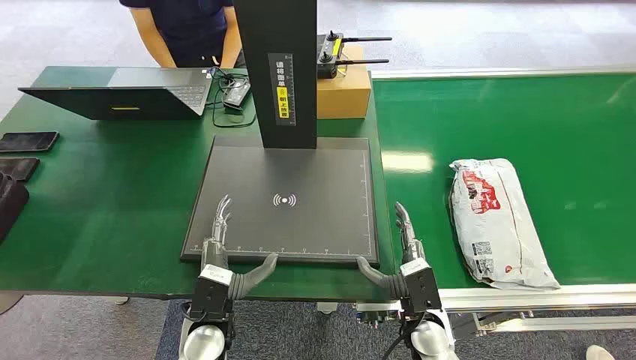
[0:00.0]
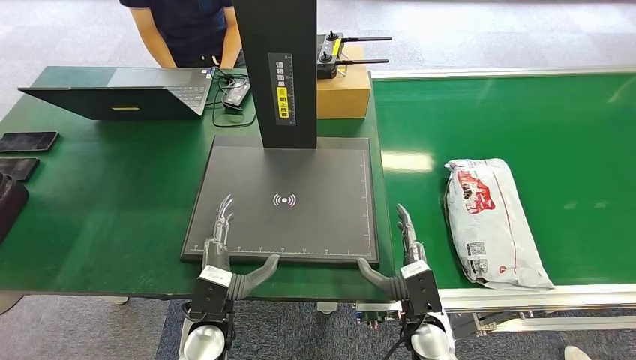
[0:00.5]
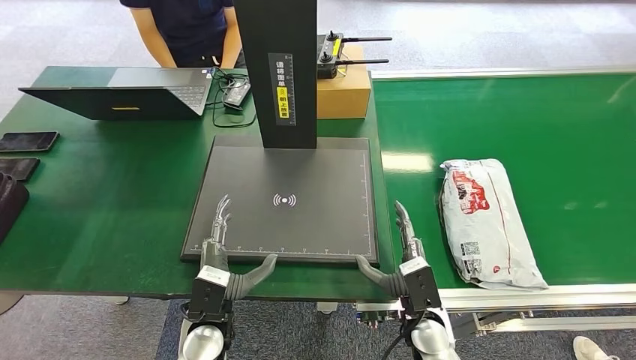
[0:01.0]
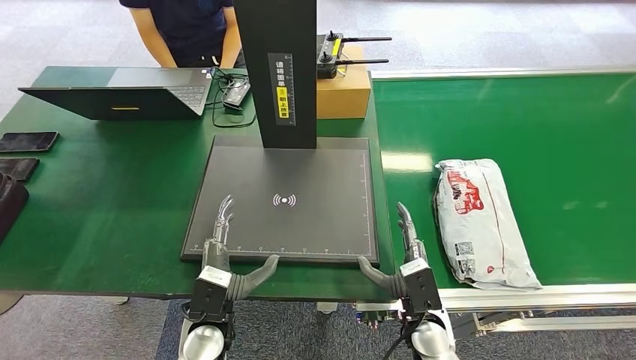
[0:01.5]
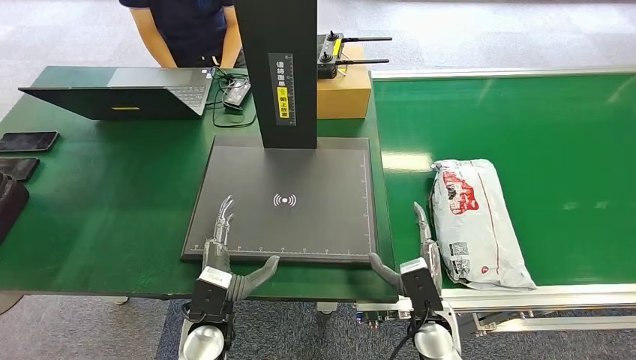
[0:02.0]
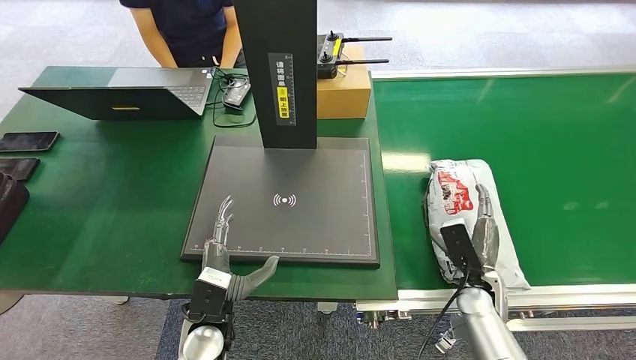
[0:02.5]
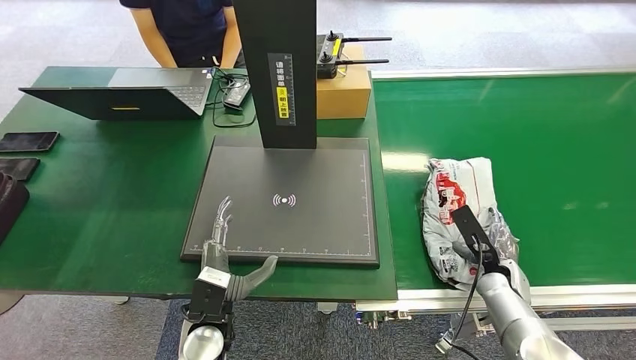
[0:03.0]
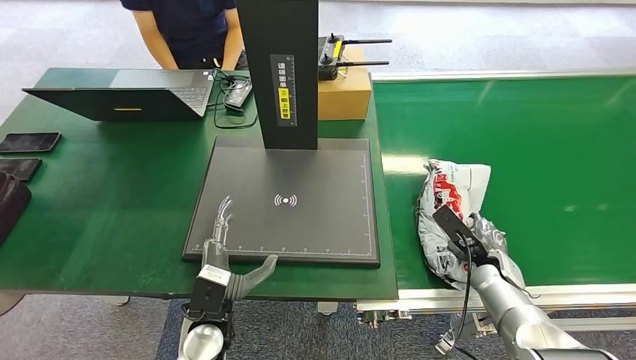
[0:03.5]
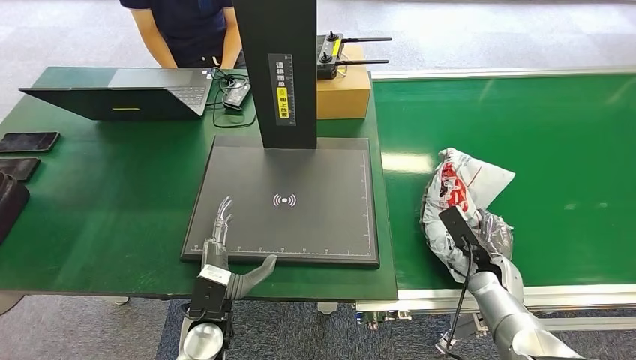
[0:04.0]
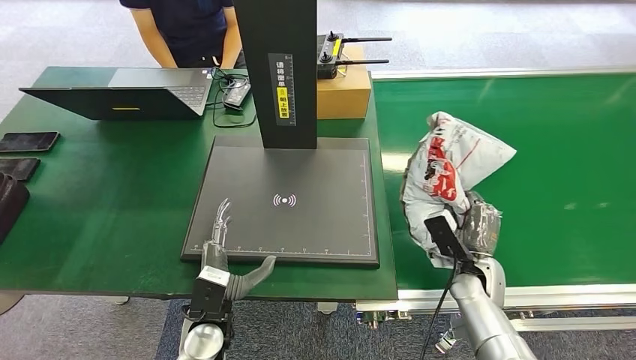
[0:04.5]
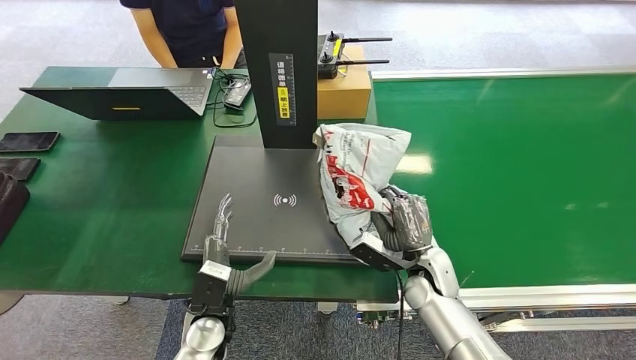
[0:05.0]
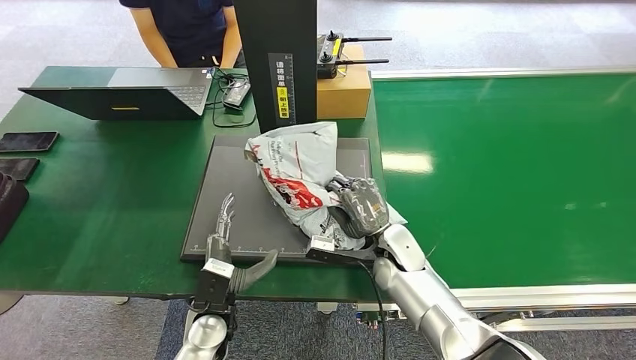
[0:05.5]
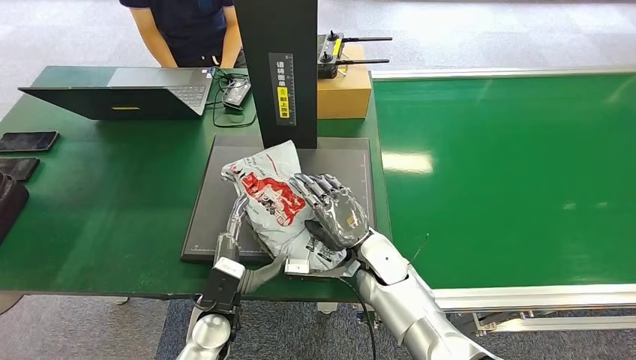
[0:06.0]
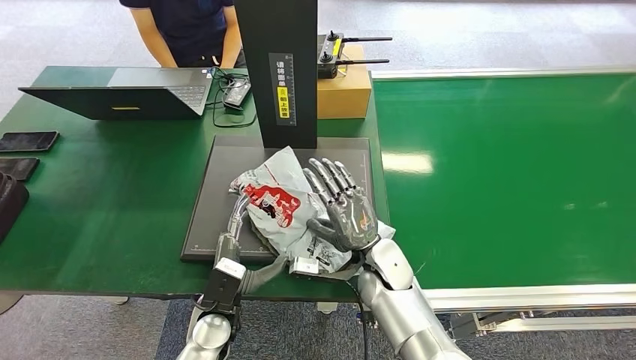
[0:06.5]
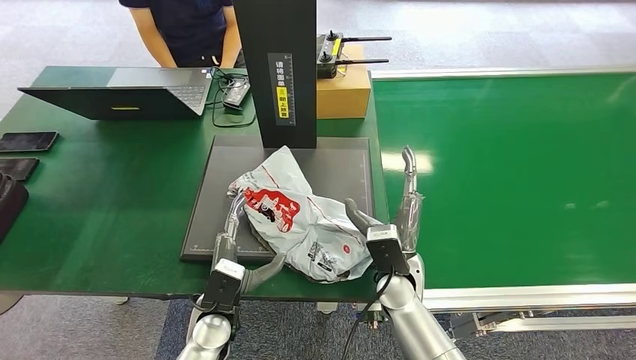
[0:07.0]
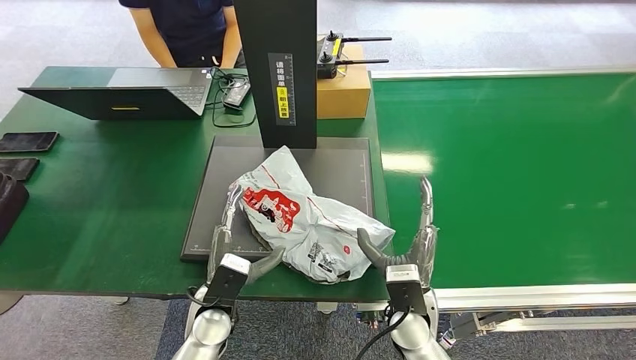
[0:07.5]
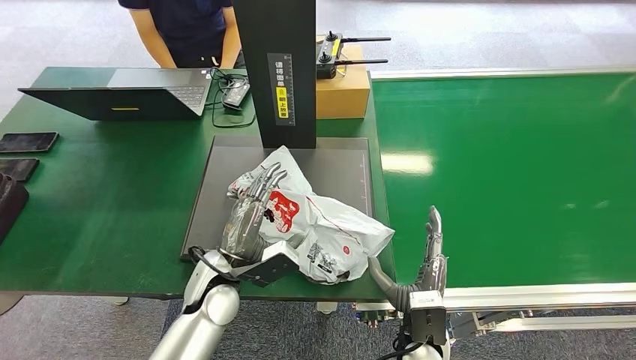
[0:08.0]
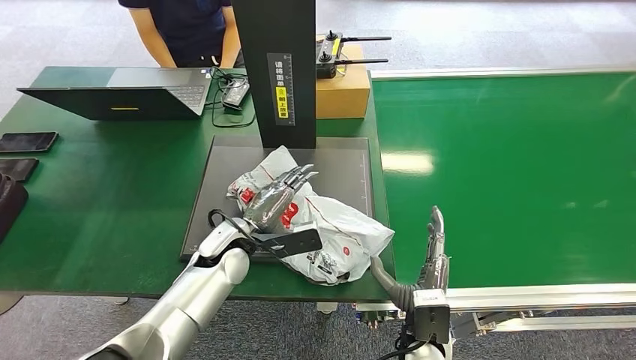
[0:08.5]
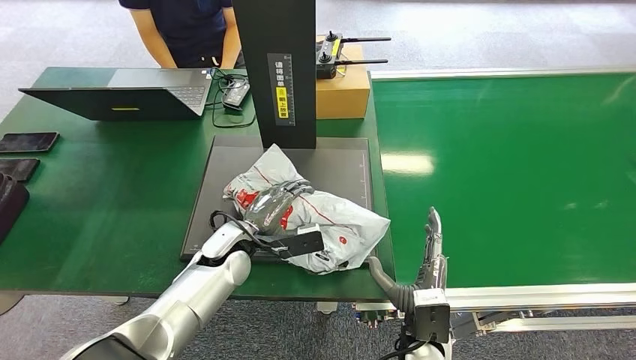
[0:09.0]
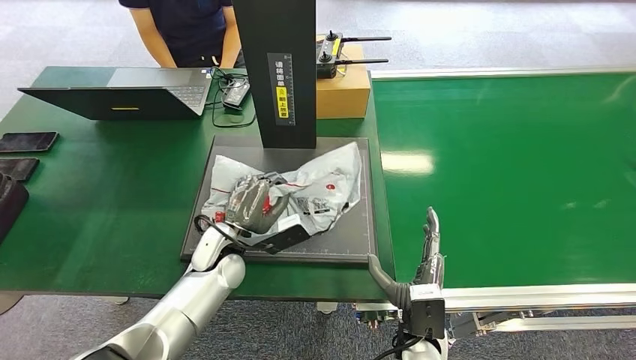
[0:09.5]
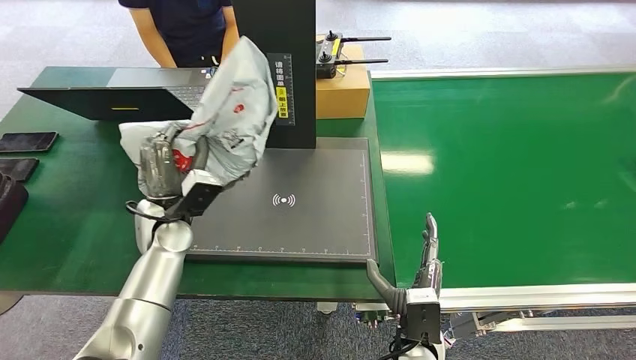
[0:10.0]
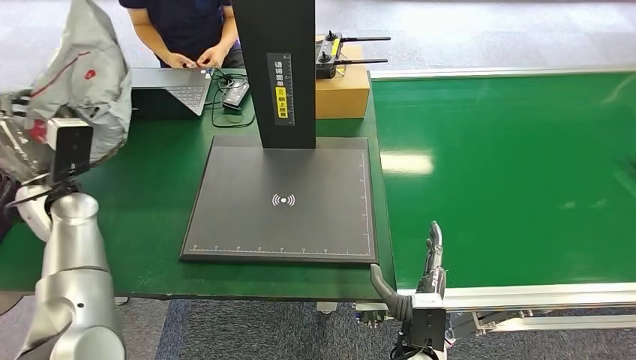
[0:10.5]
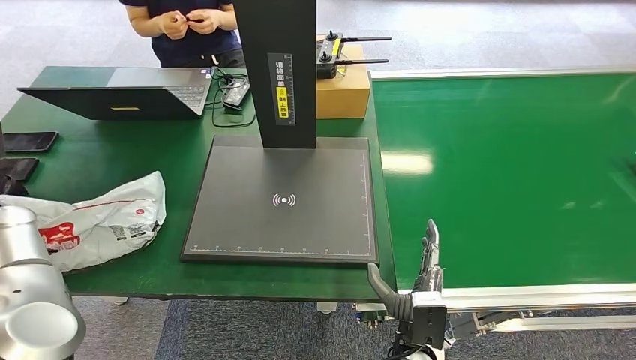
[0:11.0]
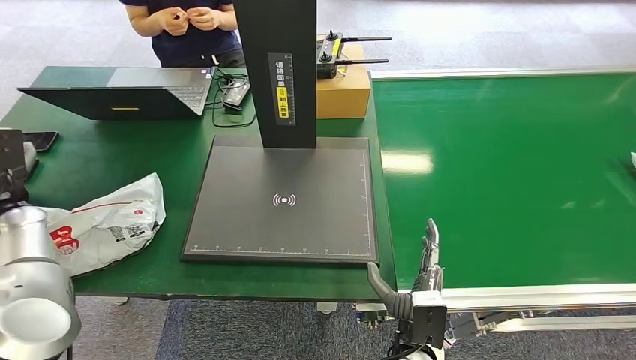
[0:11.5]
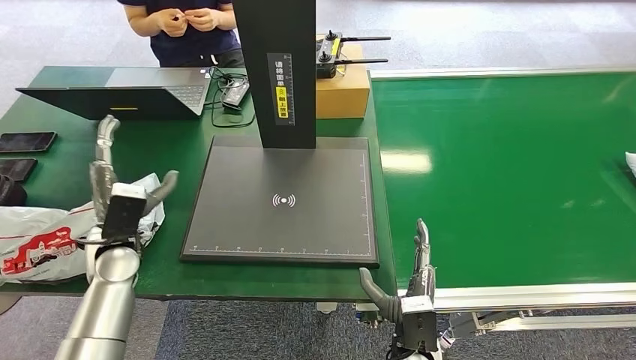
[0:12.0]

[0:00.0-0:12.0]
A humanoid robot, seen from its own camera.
Step, 0:00.0 to 0:04.0: Pick up the package from the conveyor belt.
Step, 0:04.5 to 0:07.0: Place the package onto the inbound machine.
Step, 0:07.5 to 0:09.5: Pick up the package from the inbound machine.
Step, 0:10.0 to 0:12.0: Place the package into the parcel locker.
0:02.0 to 0:04.0: The right hand heads to the right and forward, covering approximately 20 cm.
0:04.0 to 0:06.0: The right hand shifts about 25 cm to the left.
0:06.0 to 0:08.0: The left hand heads upward and forward, covering about 10 cm. Meanwhile the right hand heads backward, covering approximately 15 cm.
0:08.0 to 0:10.0: The left hand shifts some 10 cm forward and to the left.
0:10.0 to 0:12.0: The left hand travels to the left by some 10 cm.
